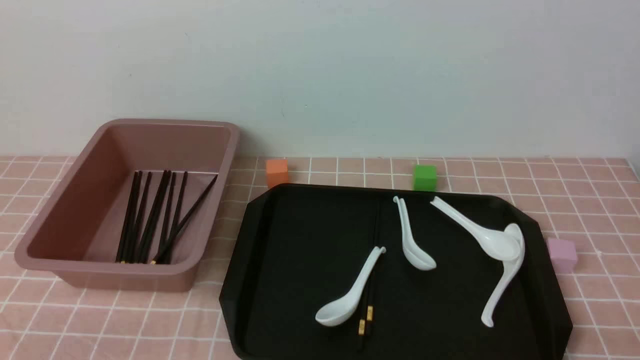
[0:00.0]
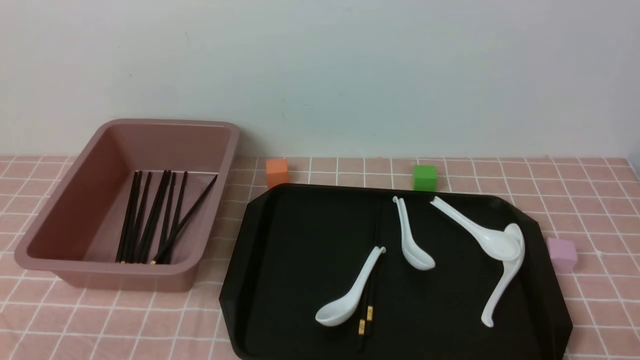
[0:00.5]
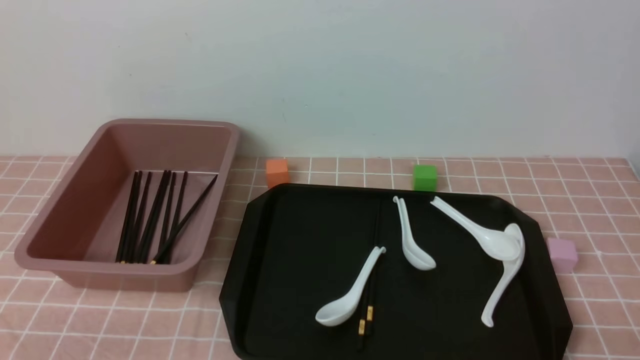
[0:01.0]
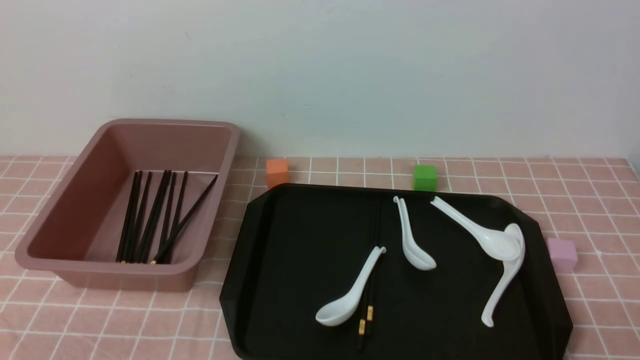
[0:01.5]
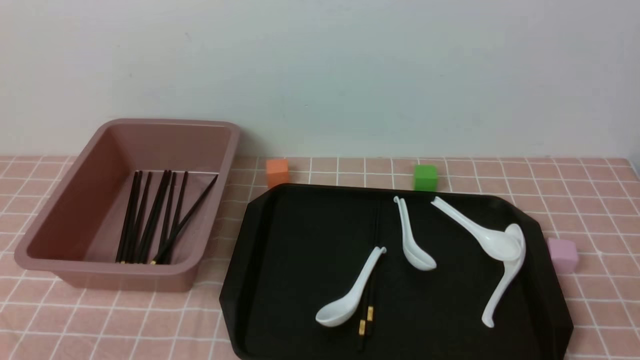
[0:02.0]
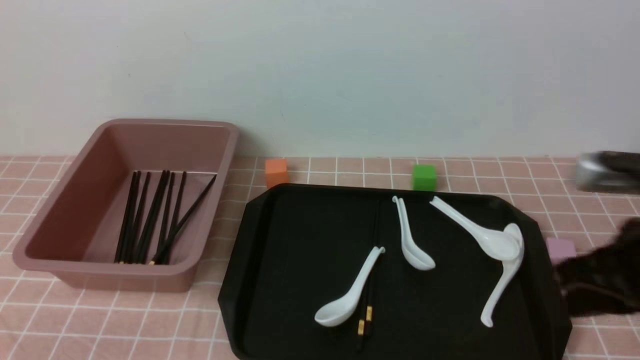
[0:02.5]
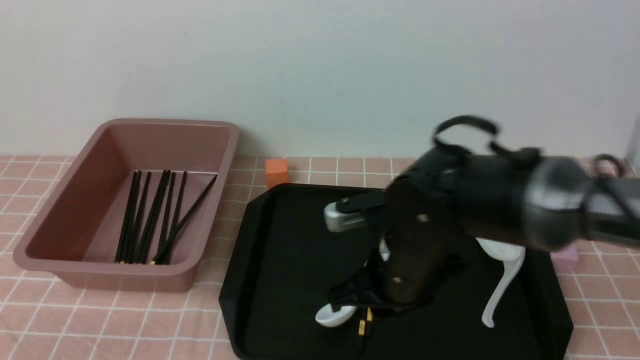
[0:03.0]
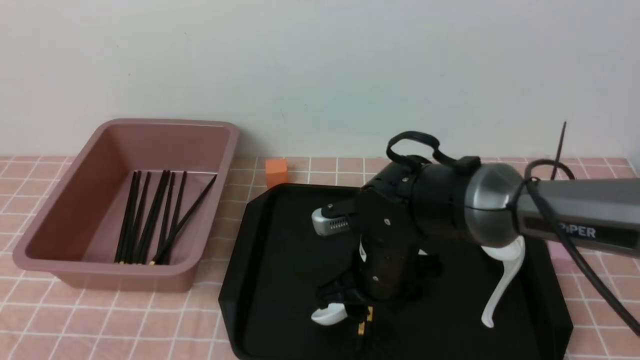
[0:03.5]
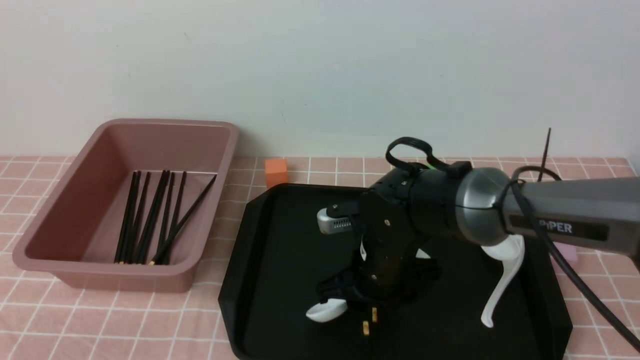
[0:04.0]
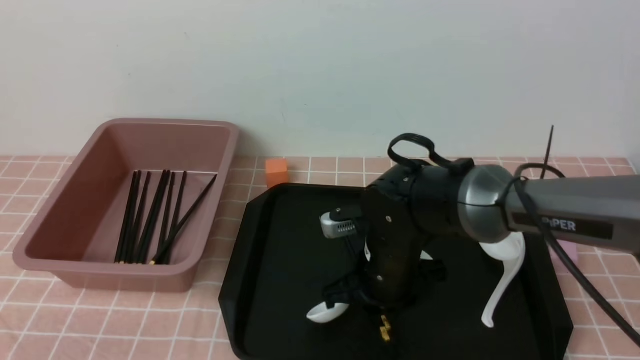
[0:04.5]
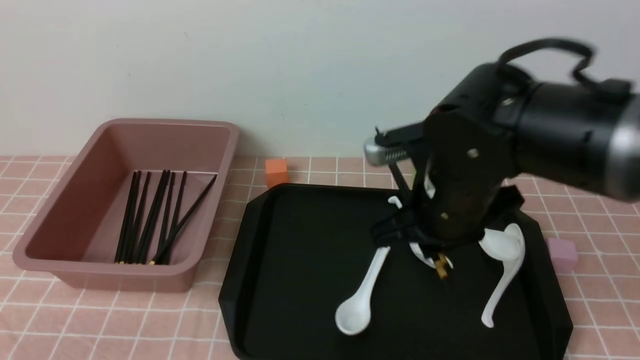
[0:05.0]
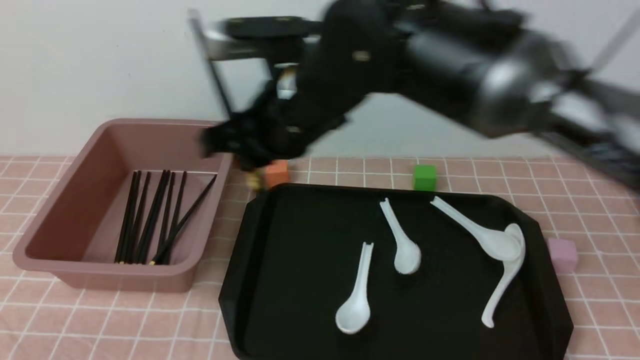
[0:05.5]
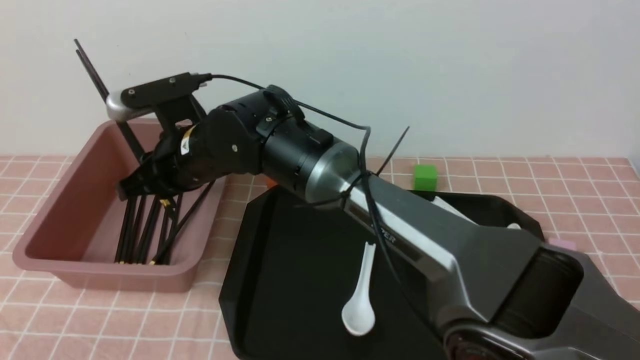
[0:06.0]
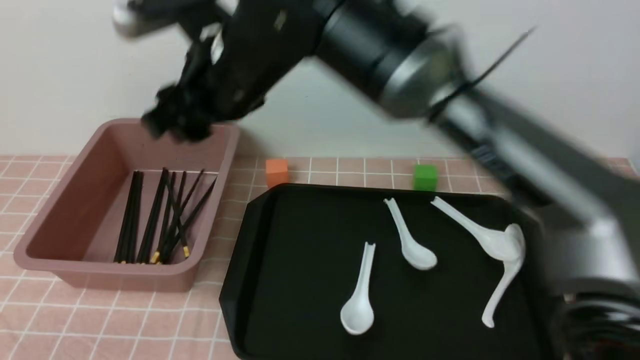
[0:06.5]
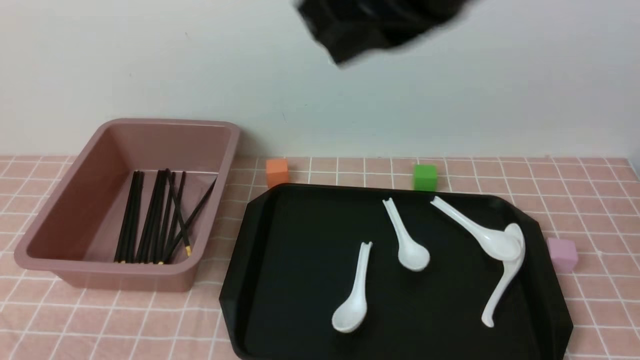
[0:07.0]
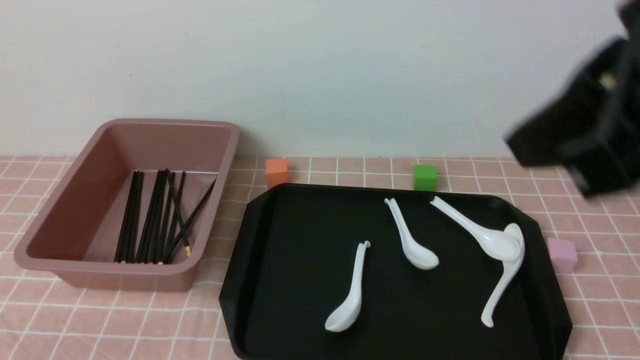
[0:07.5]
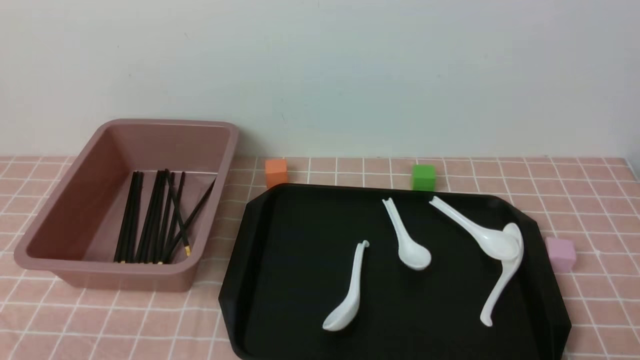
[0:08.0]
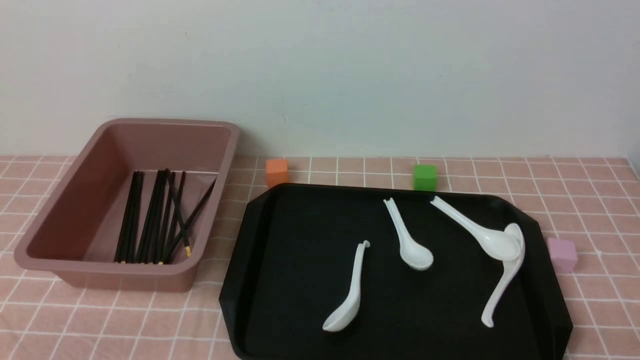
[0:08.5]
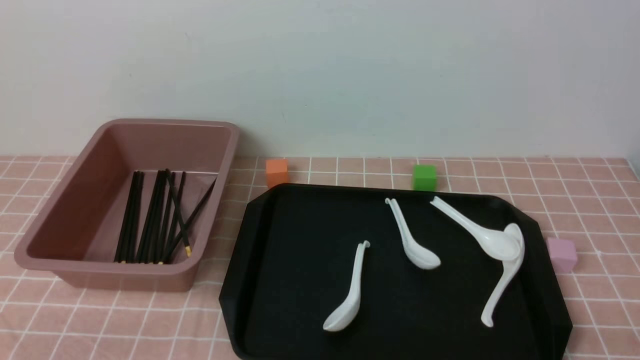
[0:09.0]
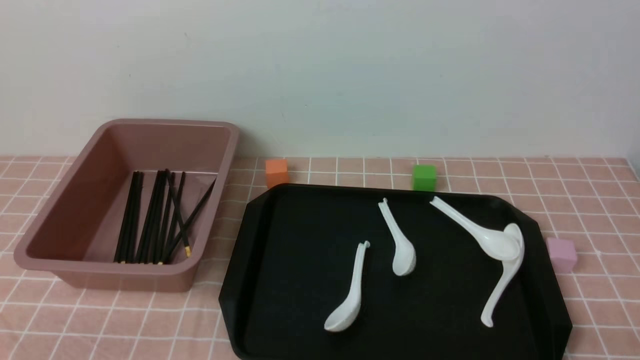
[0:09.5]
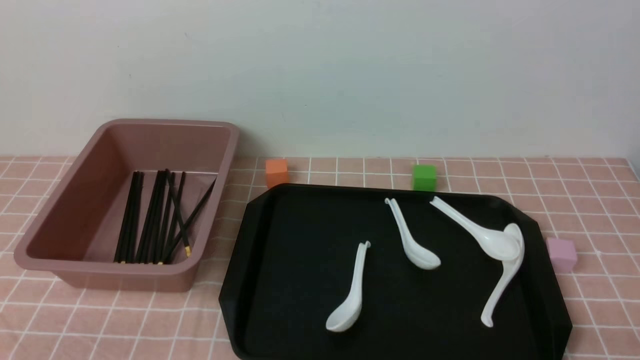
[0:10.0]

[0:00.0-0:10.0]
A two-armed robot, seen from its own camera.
Step, 0:00.0 to 0:05.0: use the right arm to grab a pair of chopsticks.
Step, 0:05.5 to 0:06.5: use the right arm to put the chopsticks into the lunch box.
0:02.0 to 0:04.0: The right gripper goes about 35 cm forward, to the left and downward, and opens.
0:04.0 to 0:06.0: The right gripper travels to the left and upward by some 20 cm.
0:06.0 to 0:08.0: The right gripper travels to the right and backward by roughly 50 cm, and closes.
0:08.0 to 0:10.0: The right gripper moves downward, about 5 cm.

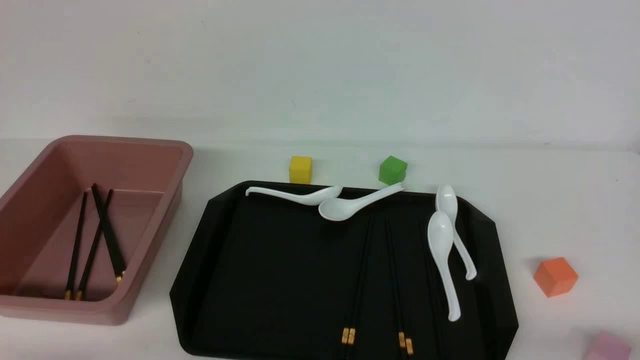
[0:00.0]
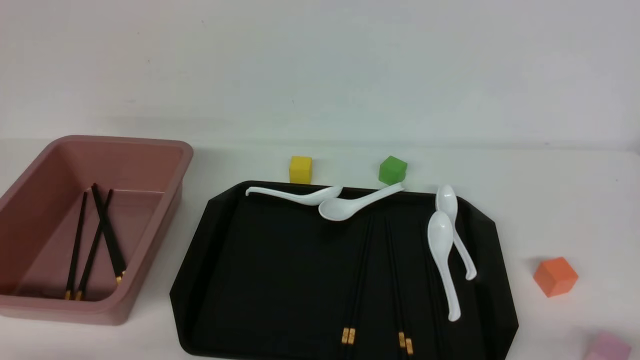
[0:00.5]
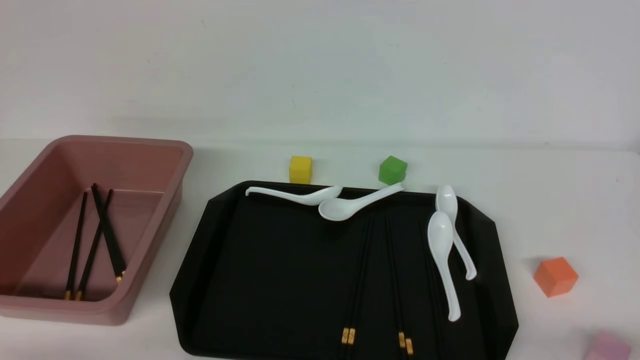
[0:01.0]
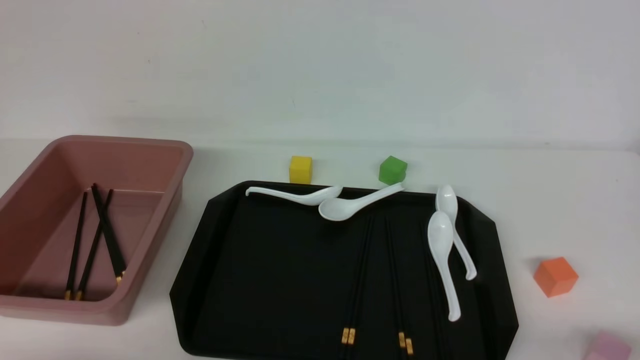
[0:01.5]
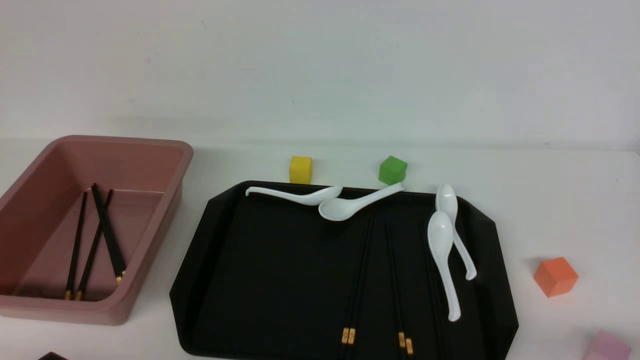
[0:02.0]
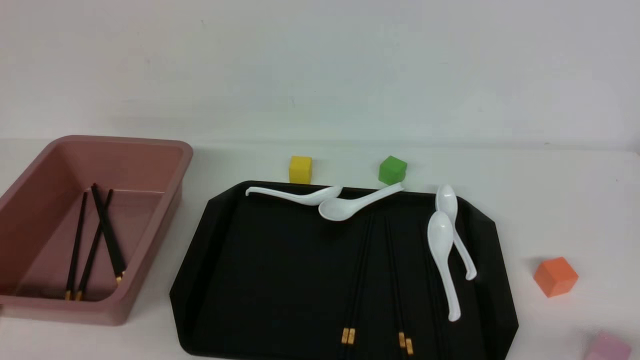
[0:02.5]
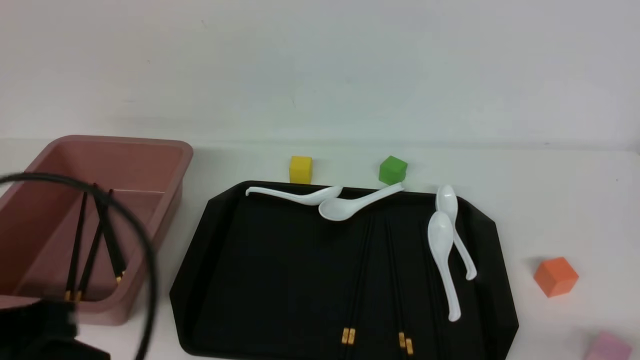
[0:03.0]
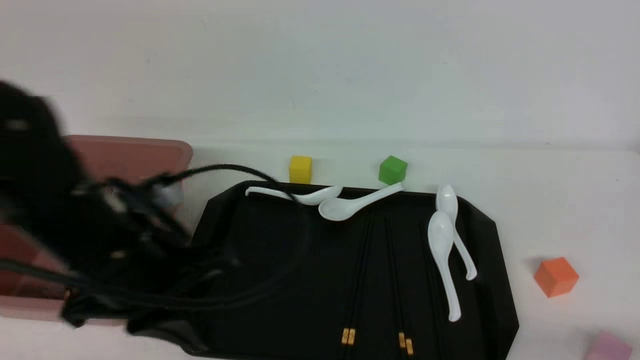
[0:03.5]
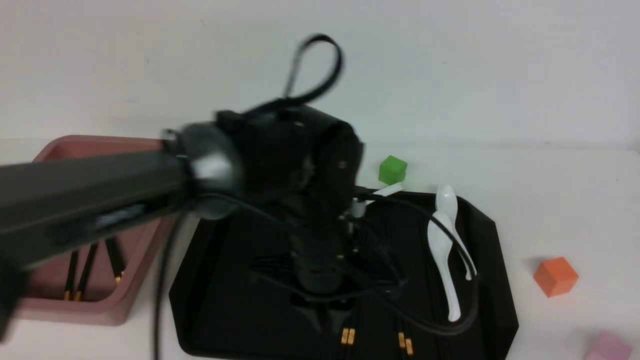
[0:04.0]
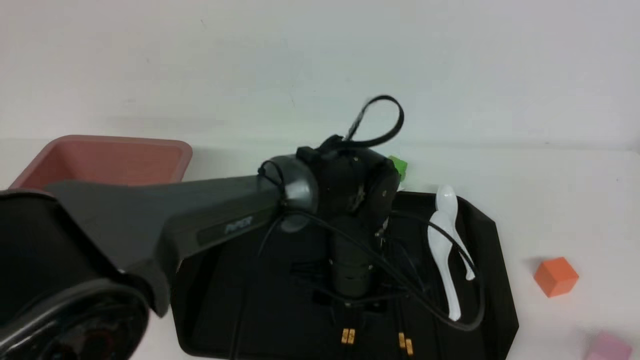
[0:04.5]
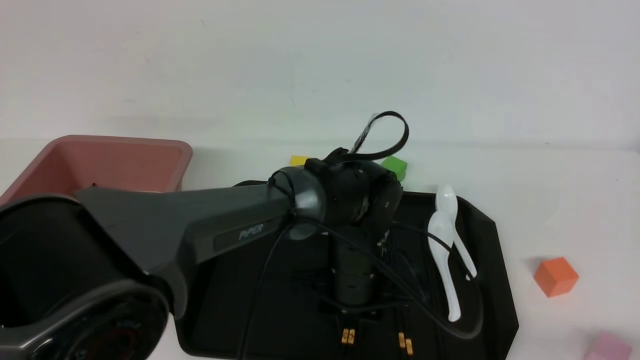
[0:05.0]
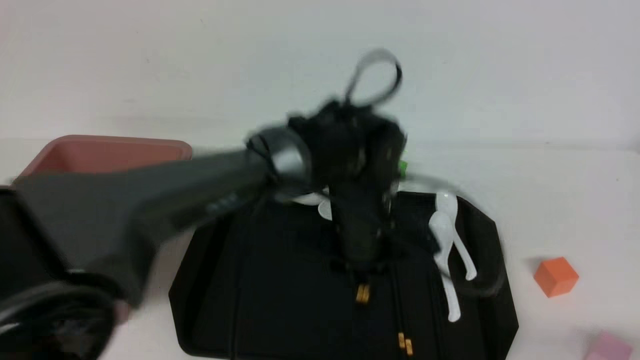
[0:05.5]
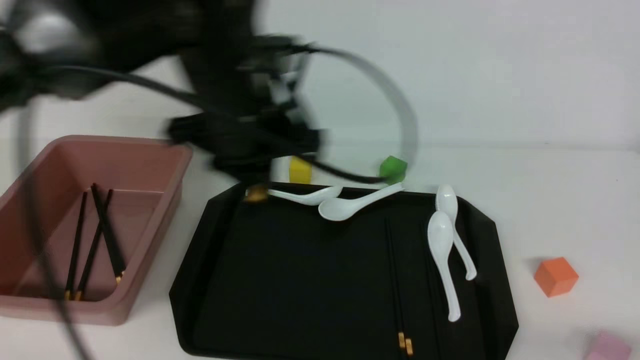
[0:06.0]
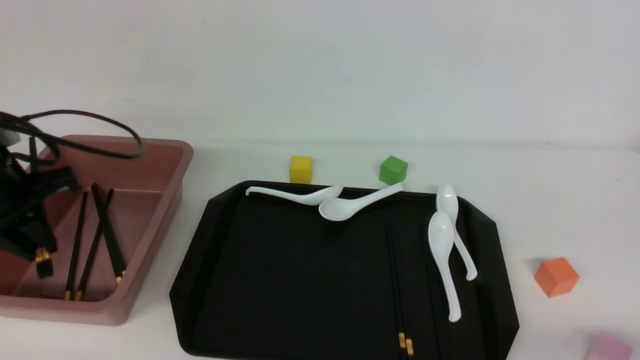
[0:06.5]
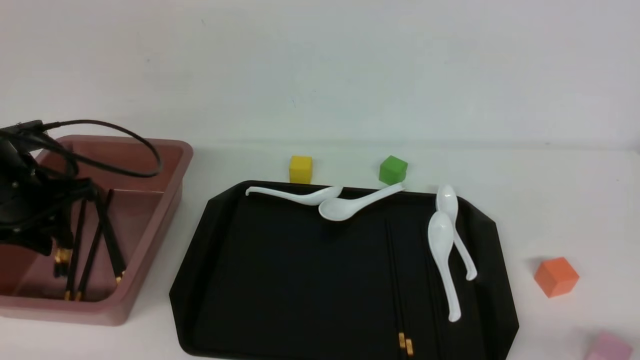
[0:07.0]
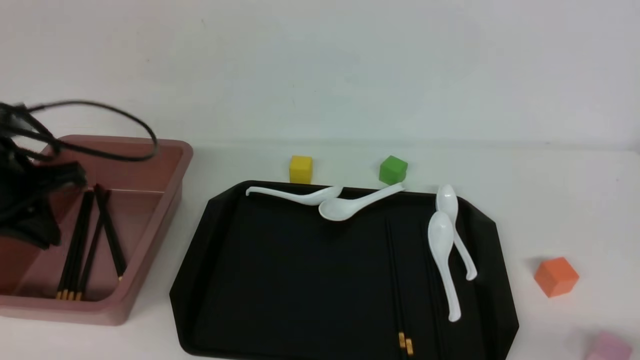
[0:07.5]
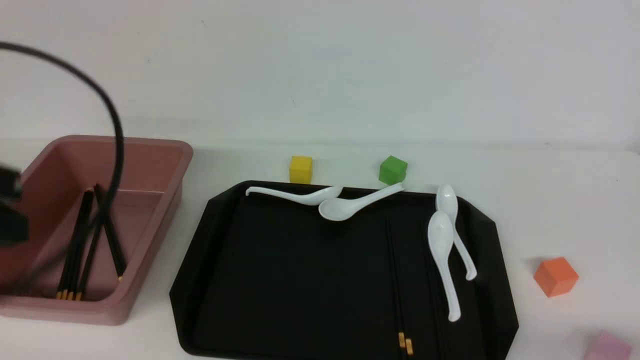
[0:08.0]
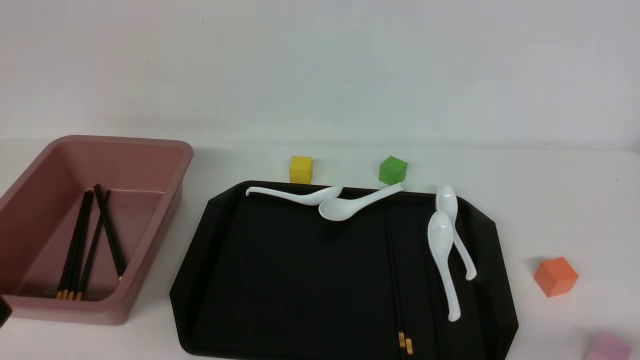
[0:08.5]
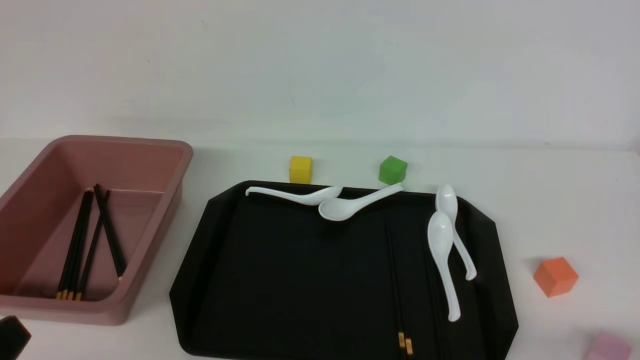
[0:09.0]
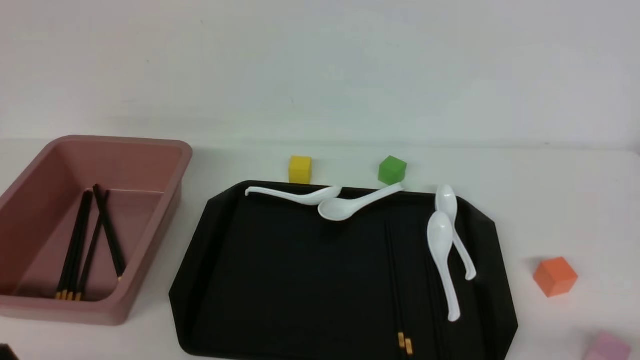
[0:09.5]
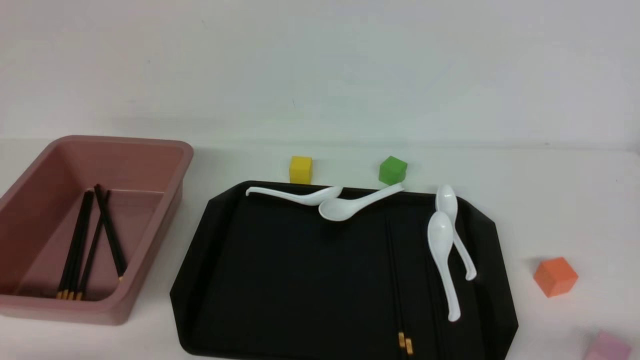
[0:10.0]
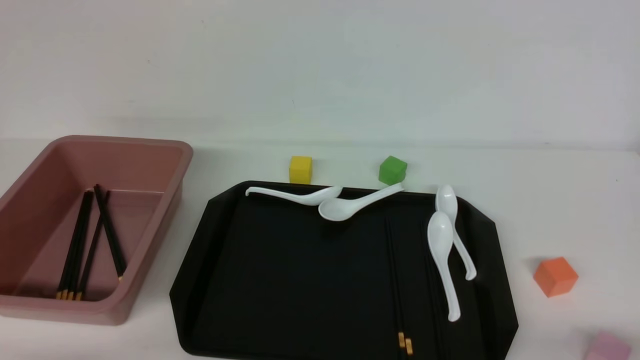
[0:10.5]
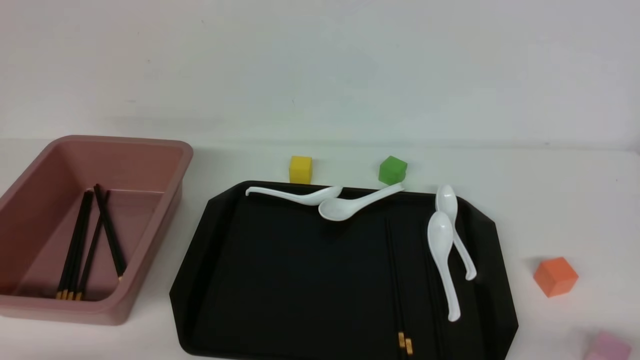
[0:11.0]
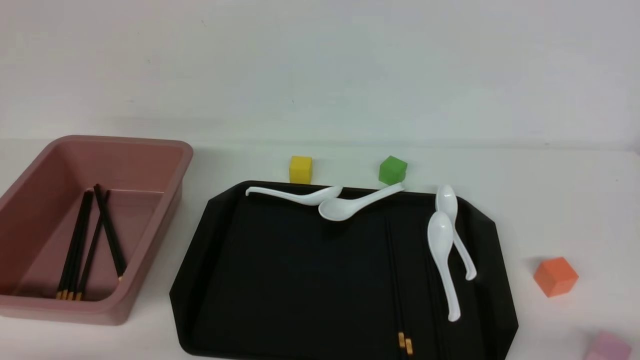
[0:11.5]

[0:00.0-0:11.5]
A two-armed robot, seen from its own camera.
Step, 0:00.0 to 0:05.5: use the left arm to grab a pair of chopsticks.
Step, 0:06.0 to 0:07.5: use the left arm to put the chopsticks into the lunch box.
0:02.0 to 0:04.0: The left gripper heads to the right and forward, covering some 35 cm, and closes and opens again.
0:04.0 to 0:06.0: The left gripper heads to the left and upward, covering some 15 cm, and opens, then closes once more.
0:06.0 to 0:07.5: The left gripper travels to the left by about 20 cm.
0:07.5 to 0:09.5: The left gripper is displaced backward by some 25 cm.
